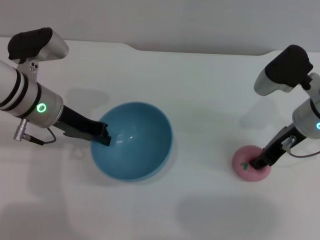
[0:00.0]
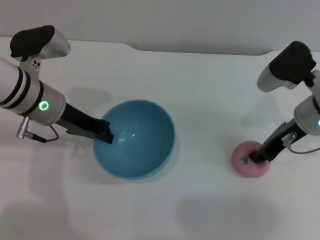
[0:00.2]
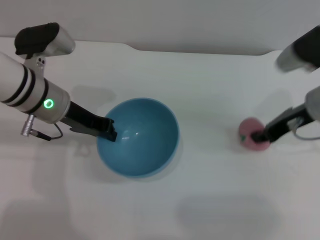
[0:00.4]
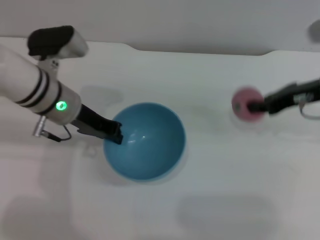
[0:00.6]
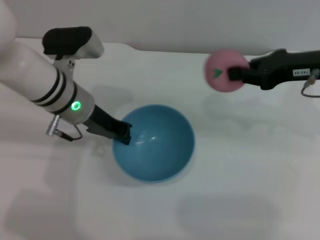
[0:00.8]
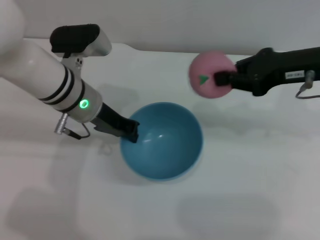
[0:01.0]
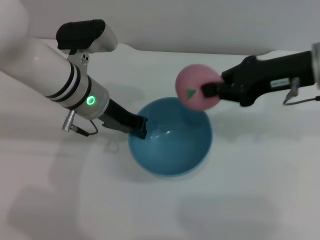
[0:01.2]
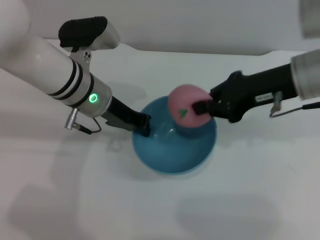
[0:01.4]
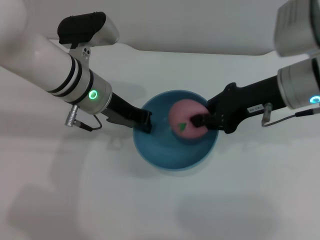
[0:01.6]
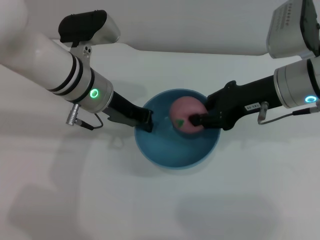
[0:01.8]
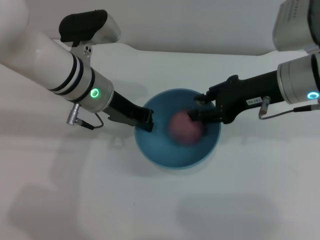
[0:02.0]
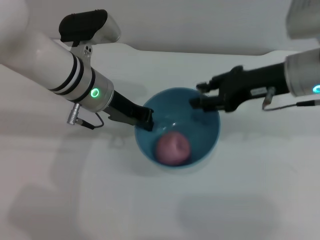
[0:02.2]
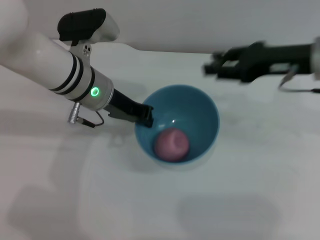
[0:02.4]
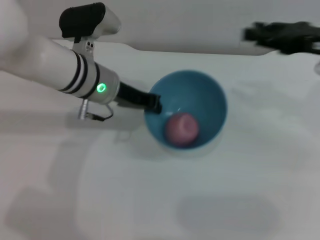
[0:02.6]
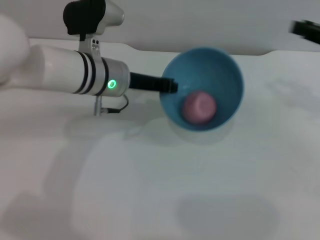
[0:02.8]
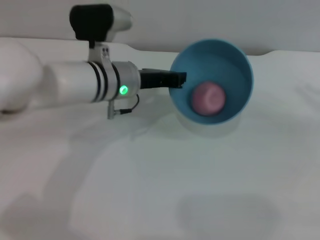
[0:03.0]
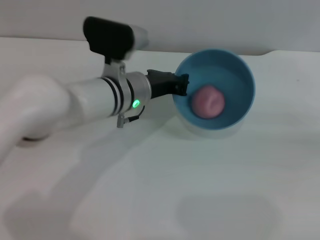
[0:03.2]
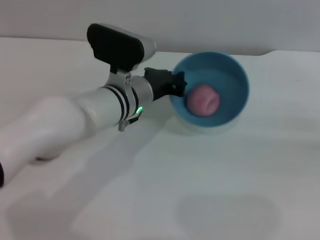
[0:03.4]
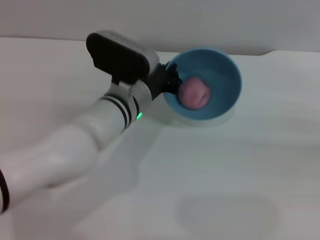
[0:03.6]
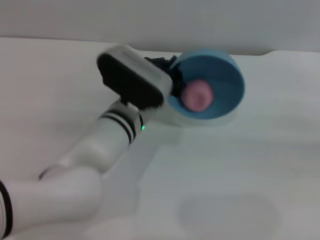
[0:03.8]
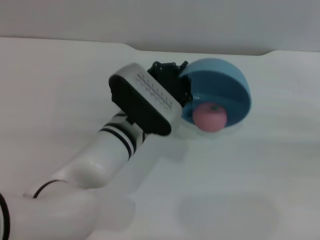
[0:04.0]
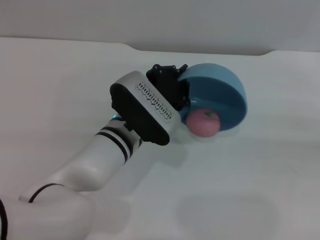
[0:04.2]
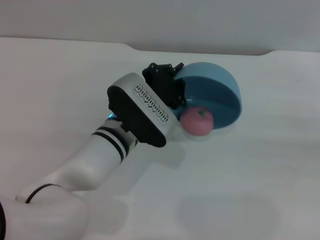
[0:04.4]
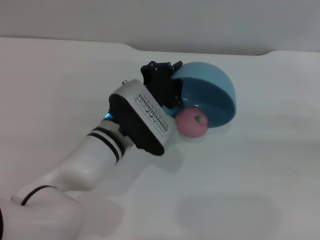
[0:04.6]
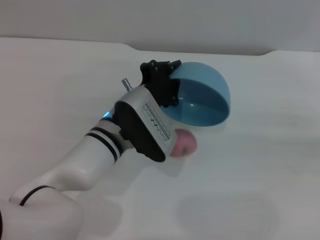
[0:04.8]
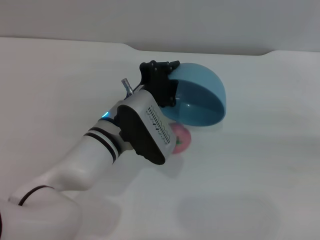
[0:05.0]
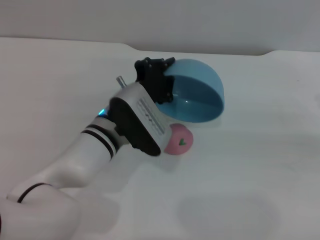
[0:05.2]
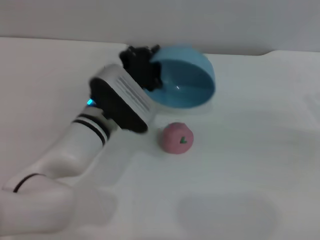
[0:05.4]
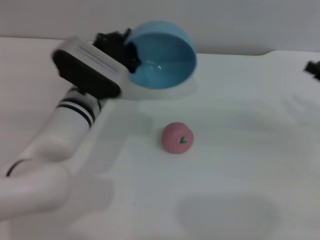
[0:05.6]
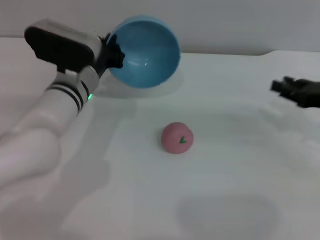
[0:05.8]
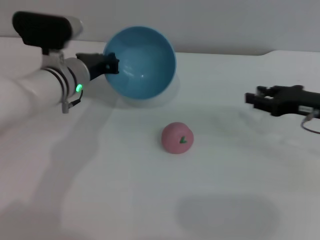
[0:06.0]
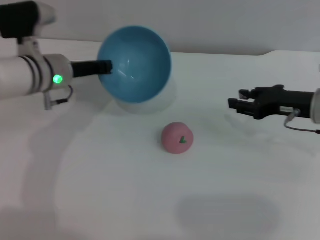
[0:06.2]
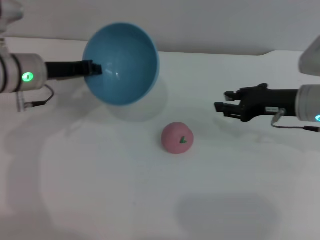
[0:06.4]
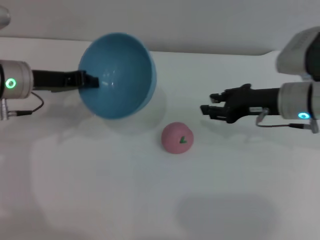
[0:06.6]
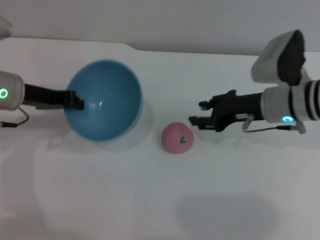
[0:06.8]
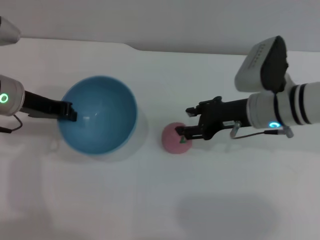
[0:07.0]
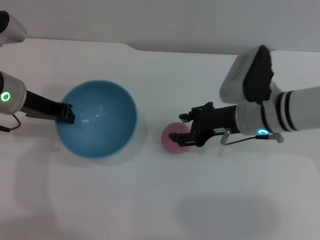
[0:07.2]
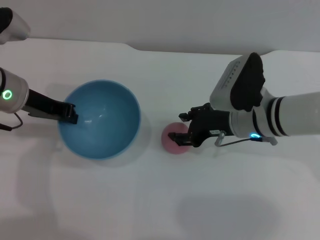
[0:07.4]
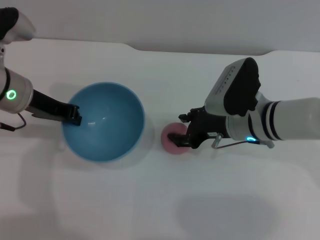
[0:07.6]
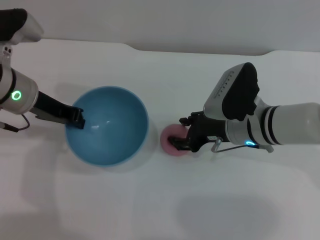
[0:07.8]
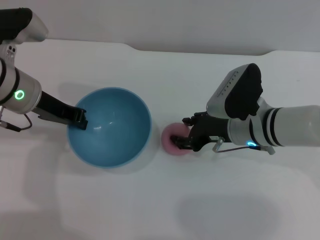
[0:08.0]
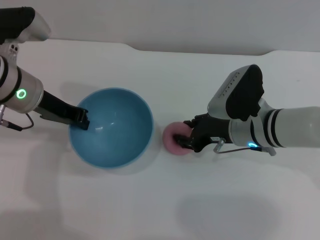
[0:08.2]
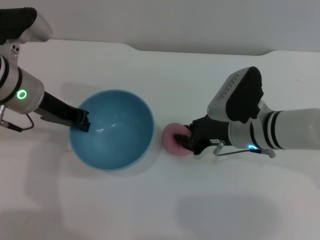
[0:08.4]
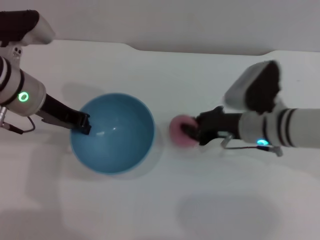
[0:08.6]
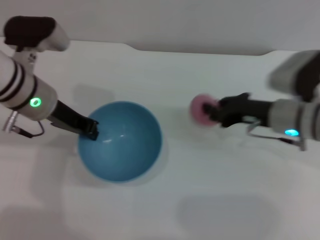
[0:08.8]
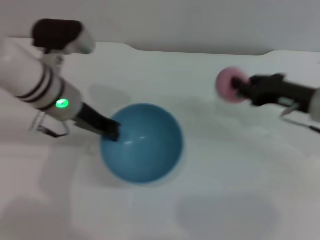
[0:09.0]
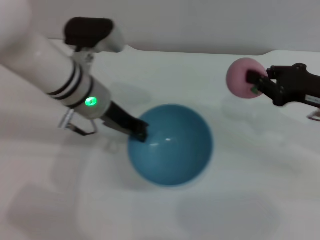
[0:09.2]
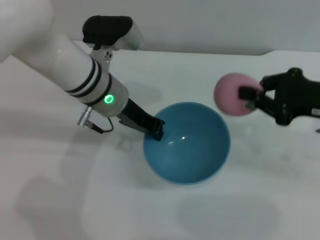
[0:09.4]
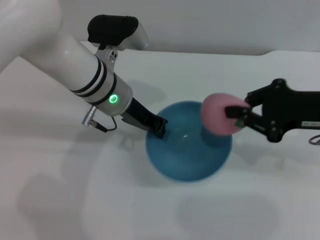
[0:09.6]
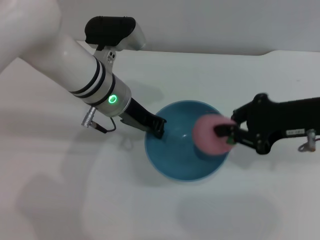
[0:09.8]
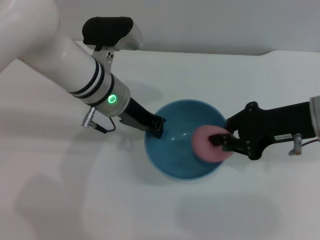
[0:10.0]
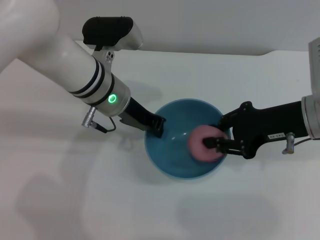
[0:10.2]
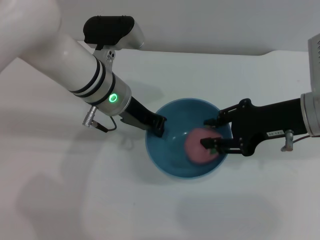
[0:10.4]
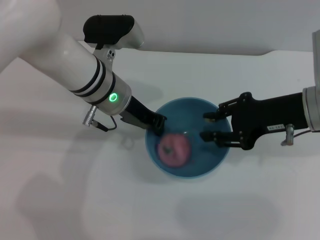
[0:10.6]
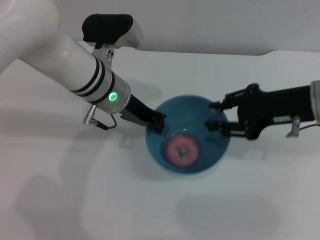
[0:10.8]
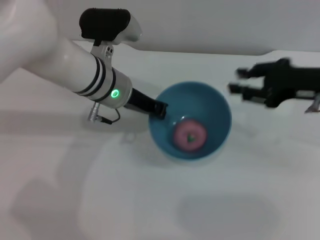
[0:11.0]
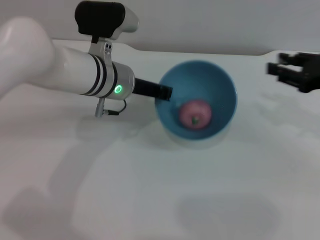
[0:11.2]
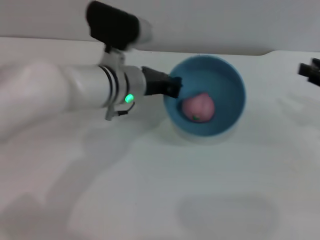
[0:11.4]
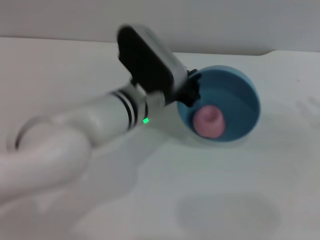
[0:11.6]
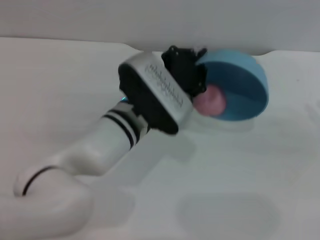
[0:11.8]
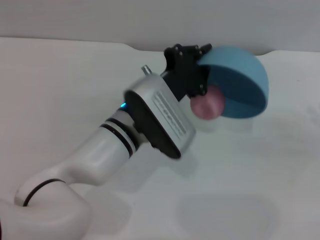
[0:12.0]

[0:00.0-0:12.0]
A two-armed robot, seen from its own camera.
Task of the whole recording: put the peach into the blue bowl and pour it out repeatedly.
Step, 0.6 to 3.0 s: Place the peach into the bowl.
Step, 3.4 to 4.8 s: Pour the peach out of bowl.
Step, 5.0 to 8.6 s: Pick up the peach with the right gripper.
Step, 8.8 to 10.8 s: Place the peach into the bowl.
0.0 to 1.6 s: The left gripper goes roughly 5 cm to the right, while the right gripper moves upward, some 5 cm, and closes.
1.6 to 3.0 s: The right gripper shifts roughly 20 cm to the right, and opens its fingers.
3.0 to 4.4 s: The left gripper shifts about 10 cm backward and downward. Meanwhile the right gripper changes place by approximately 5 cm.
4.4 to 6.0 s: The two grippers go approximately 15 cm to the left and forward.
6.0 to 7.6 s: The right gripper heads to the left, covering approximately 15 cm. Meanwhile the left gripper is displaced to the left and upward by about 10 cm.
7.6 to 9.0 s: The left gripper shifts roughly 5 cm to the right. The right gripper heads to the right, covering roughly 10 cm, and closes up.
9.0 to 10.4 s: The left gripper is displaced to the right by some 5 cm. Meanwhile the right gripper is displaced upward by approximately 5 cm.
10.4 to 12.0 s: The right gripper goes some 20 cm to the right, while the left gripper is displaced backward and to the right by approximately 10 cm.

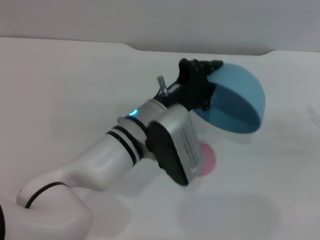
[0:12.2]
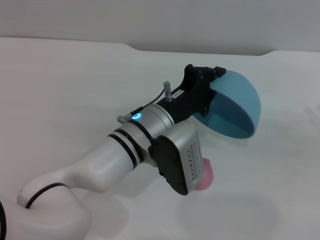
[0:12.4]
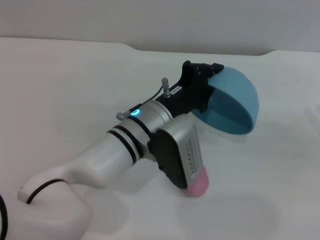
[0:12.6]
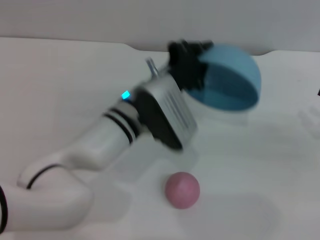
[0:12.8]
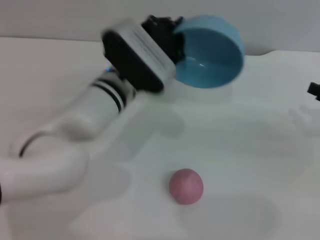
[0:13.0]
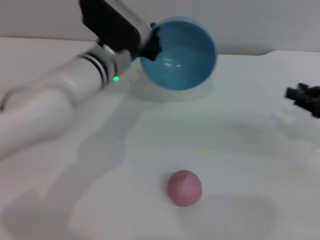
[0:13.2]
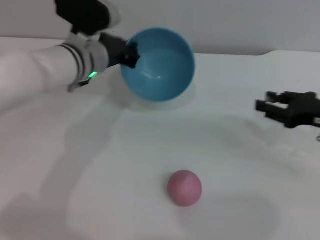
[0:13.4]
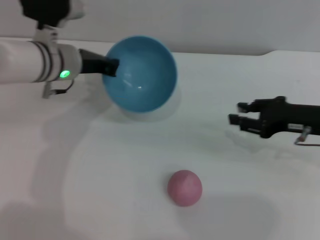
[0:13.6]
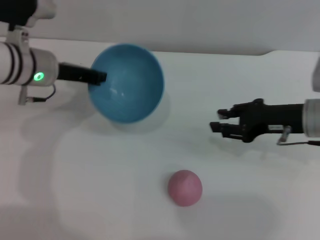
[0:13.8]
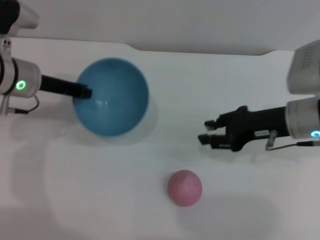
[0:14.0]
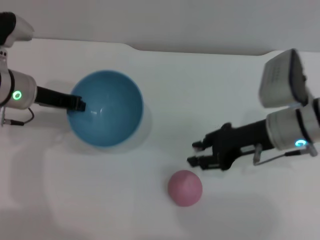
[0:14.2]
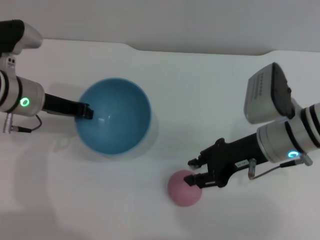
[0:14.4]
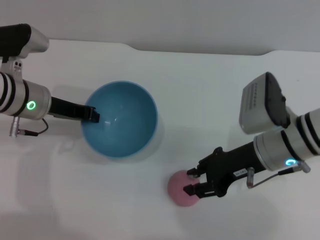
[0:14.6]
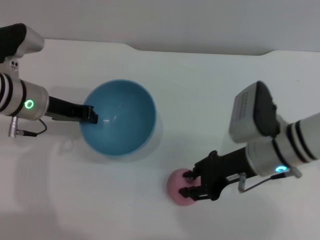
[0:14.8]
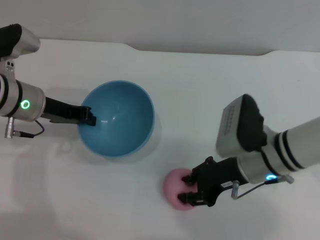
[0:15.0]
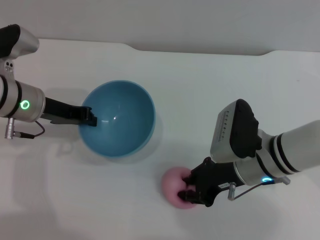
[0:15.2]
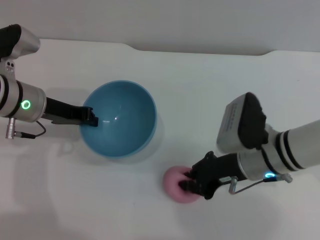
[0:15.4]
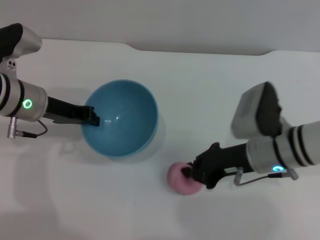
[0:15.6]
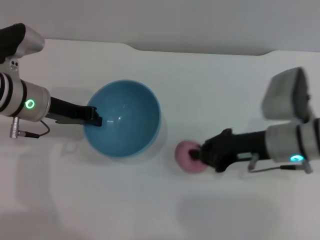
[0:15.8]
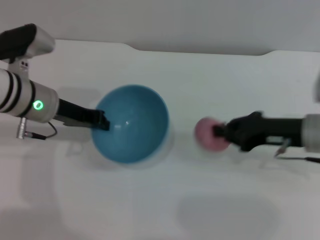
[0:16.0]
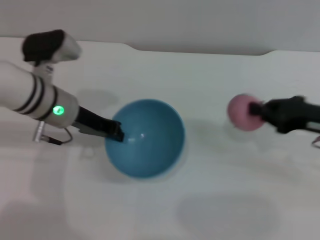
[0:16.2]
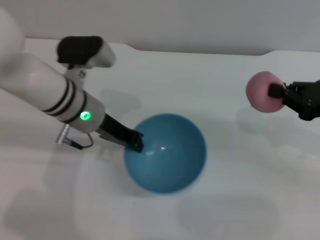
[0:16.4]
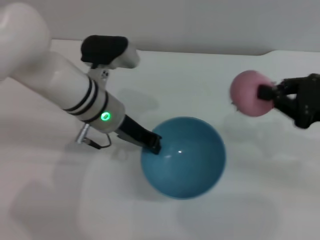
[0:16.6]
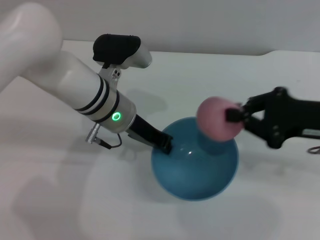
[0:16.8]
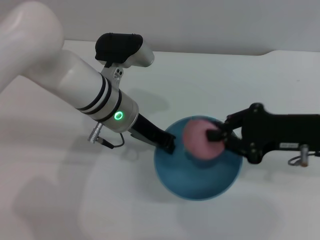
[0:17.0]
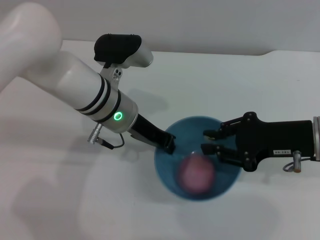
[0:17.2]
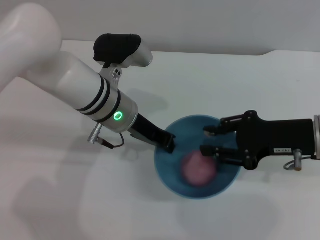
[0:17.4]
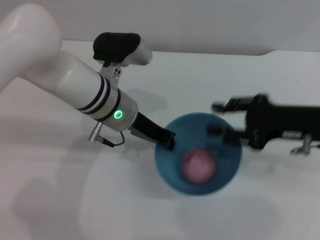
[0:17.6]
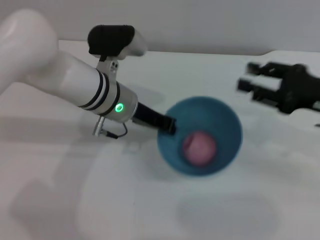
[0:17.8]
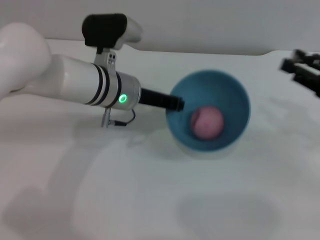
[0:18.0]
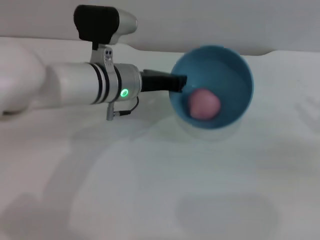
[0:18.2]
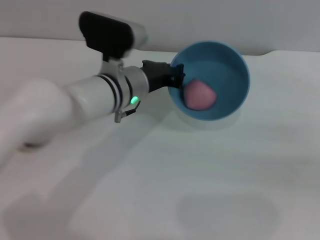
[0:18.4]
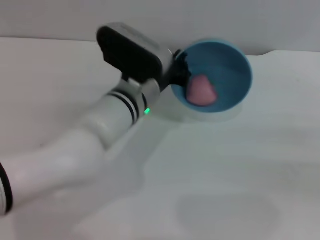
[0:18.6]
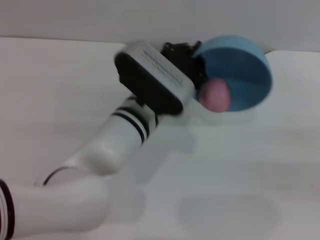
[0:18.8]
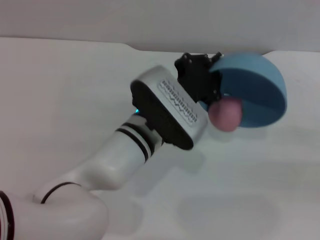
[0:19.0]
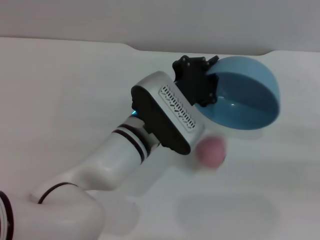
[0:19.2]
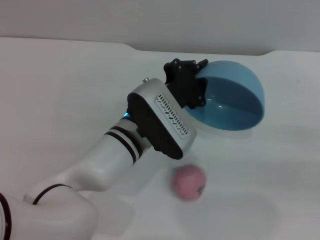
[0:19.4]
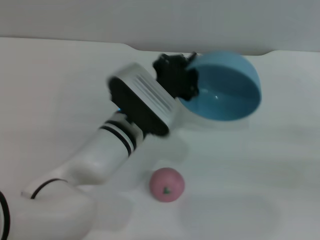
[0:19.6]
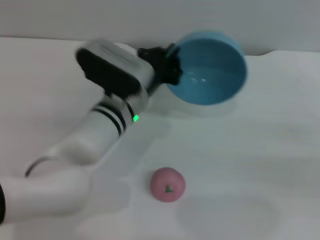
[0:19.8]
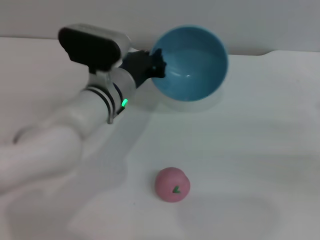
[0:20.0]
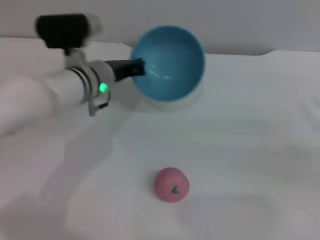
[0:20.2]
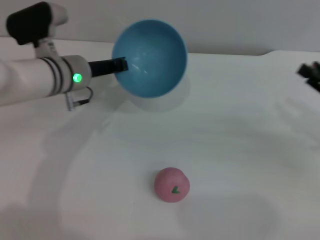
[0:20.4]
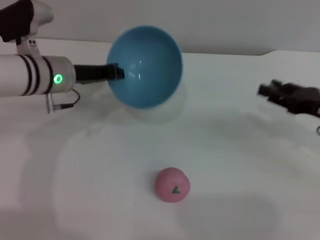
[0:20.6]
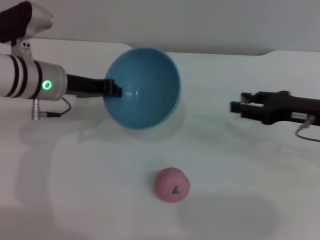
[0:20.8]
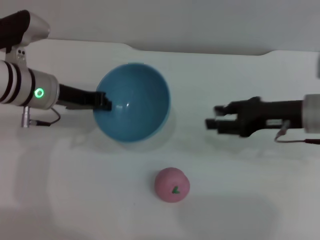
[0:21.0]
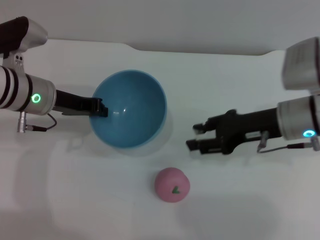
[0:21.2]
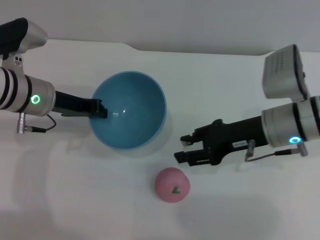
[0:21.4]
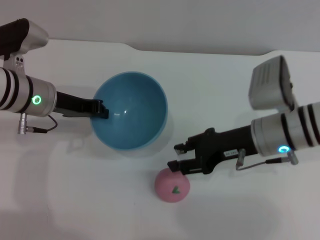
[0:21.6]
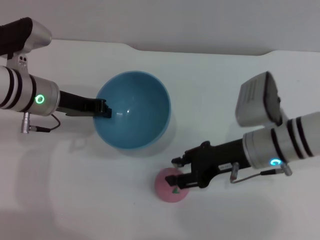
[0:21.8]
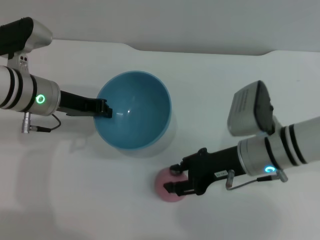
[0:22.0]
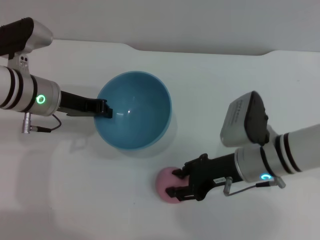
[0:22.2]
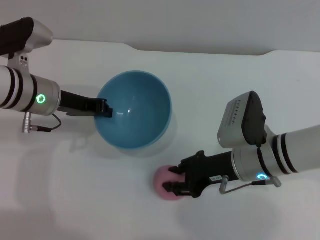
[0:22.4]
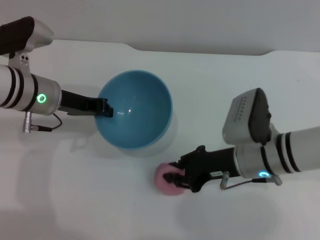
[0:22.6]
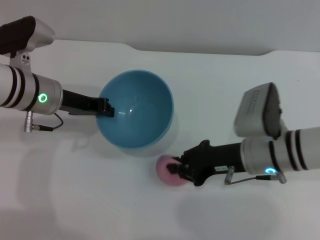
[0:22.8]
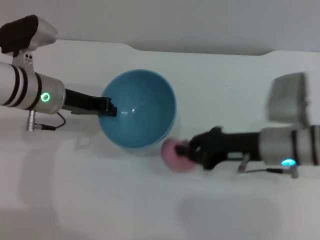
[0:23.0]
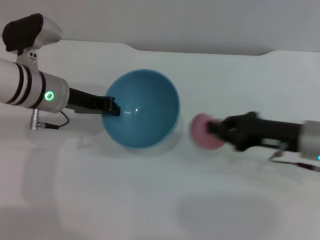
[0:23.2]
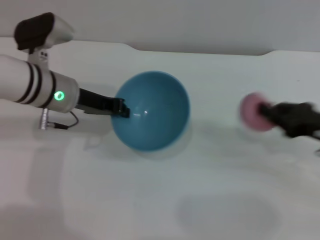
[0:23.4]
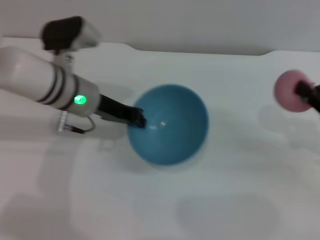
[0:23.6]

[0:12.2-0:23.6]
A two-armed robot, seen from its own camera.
Task of the whole recording: put the peach into the blue bowl and pour it out repeatedly.
Step, 12.8 to 15.8 s: Pick up the peach with the right gripper.
Step, 16.0 to 17.4 s: Place the peach into the bowl.
Step, 17.6 to 19.4 s: Pour the peach out of bowl.
Step, 19.6 to 23.2 s: Pick up the peach with the right gripper.
12.2 to 13.6 s: The left gripper travels to the left and forward by about 15 cm, while the right gripper goes some 10 cm to the left.
13.6 to 15.0 s: The right gripper goes some 10 cm to the left. The left gripper travels to the left by about 5 cm.
15.0 to 16.4 s: The right gripper moves to the right and upward, some 20 cm, and closes its fingers. Meanwhile the left gripper travels to the right by approximately 10 cm.
16.4 to 17.8 s: The right gripper opens its fingers.
17.8 to 19.4 s: The right gripper travels to the right and backward by roughly 15 cm. Meanwhile the left gripper travels backward by roughly 5 cm.
19.4 to 20.8 s: Both grippers travel together to the left and forward, about 15 cm.
20.8 to 22.2 s: The right gripper moves to the left, roughly 10 cm.
22.2 to 23.6 s: The right gripper moves to the right, about 20 cm, and closes up. Meanwhile the left gripper shifts about 5 cm to the right.
